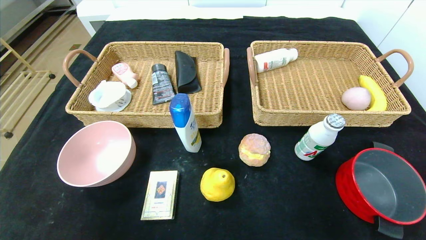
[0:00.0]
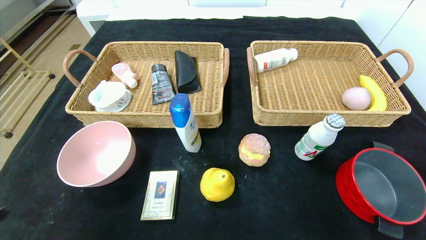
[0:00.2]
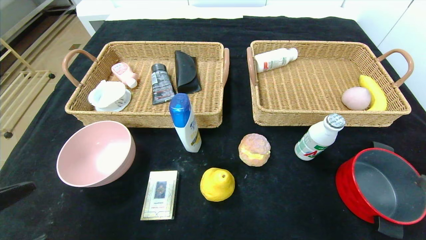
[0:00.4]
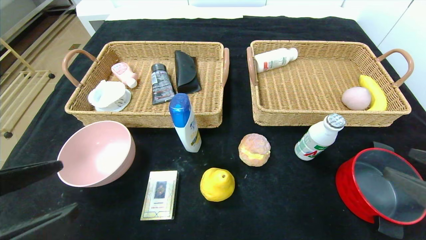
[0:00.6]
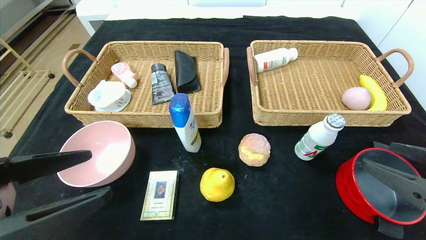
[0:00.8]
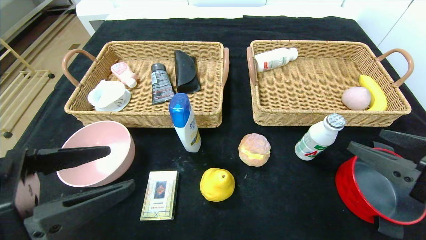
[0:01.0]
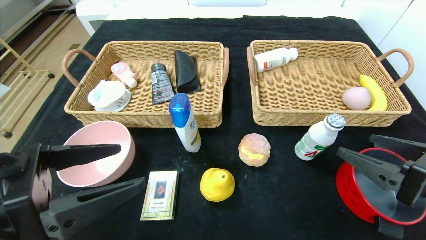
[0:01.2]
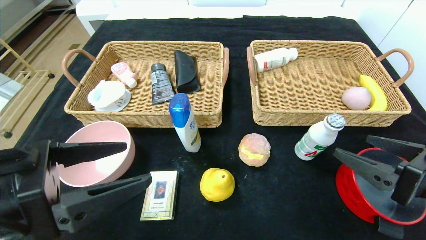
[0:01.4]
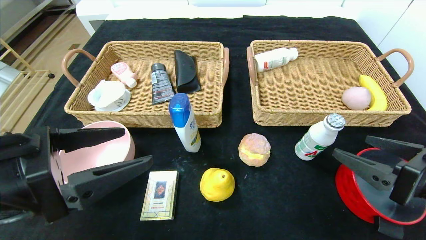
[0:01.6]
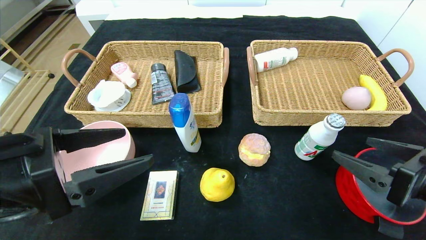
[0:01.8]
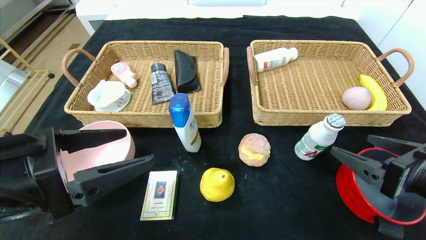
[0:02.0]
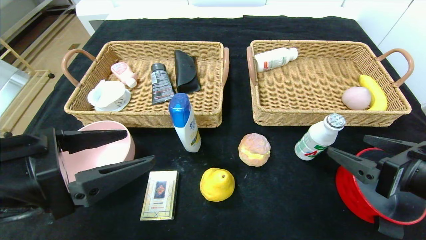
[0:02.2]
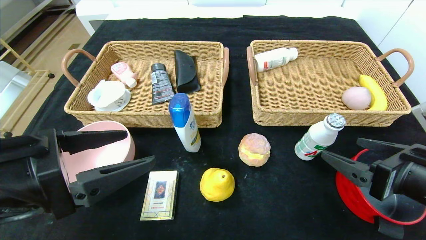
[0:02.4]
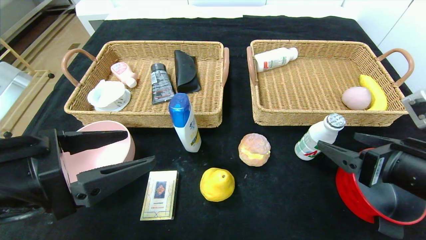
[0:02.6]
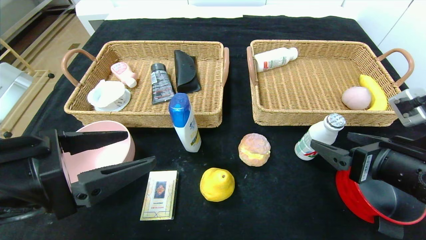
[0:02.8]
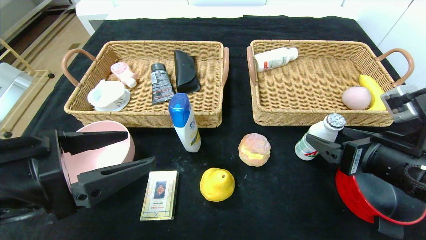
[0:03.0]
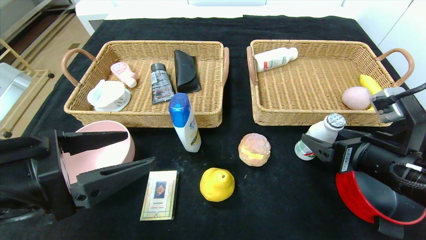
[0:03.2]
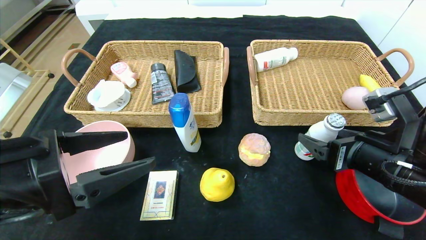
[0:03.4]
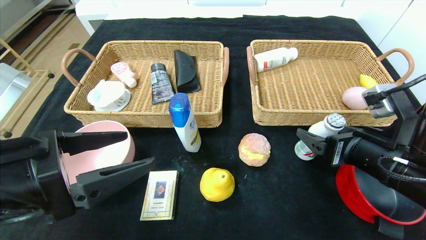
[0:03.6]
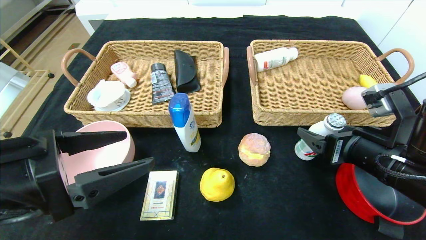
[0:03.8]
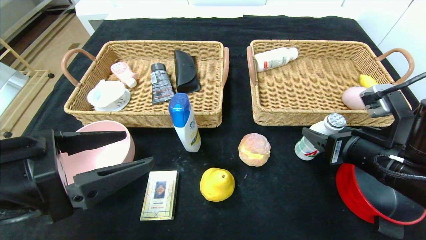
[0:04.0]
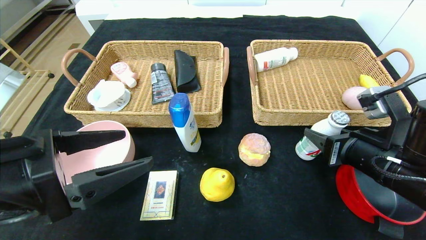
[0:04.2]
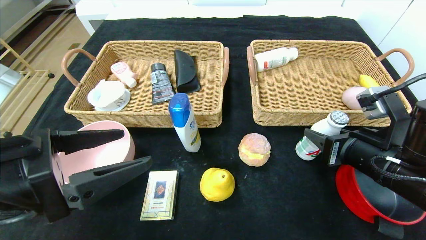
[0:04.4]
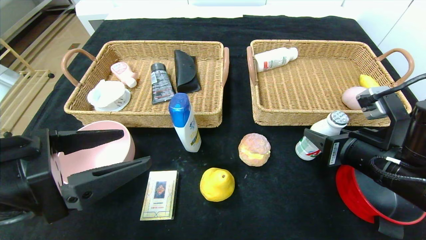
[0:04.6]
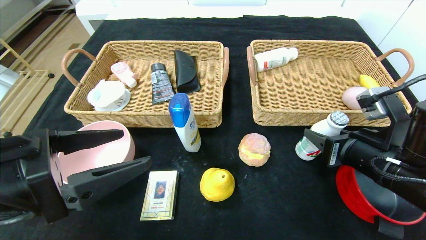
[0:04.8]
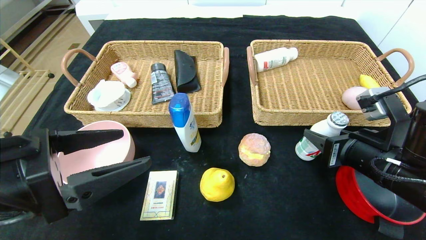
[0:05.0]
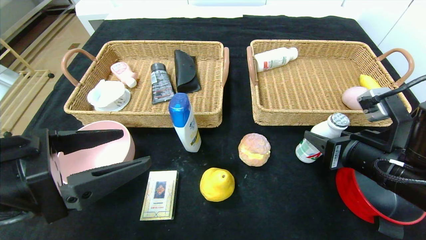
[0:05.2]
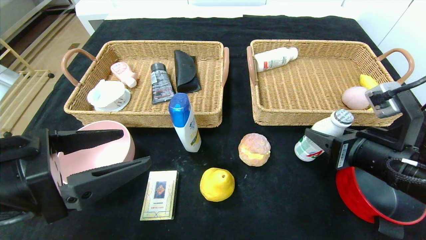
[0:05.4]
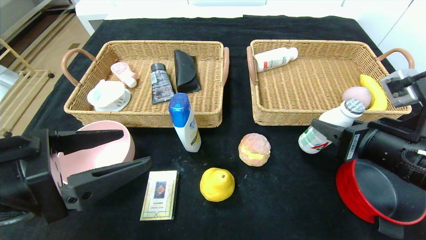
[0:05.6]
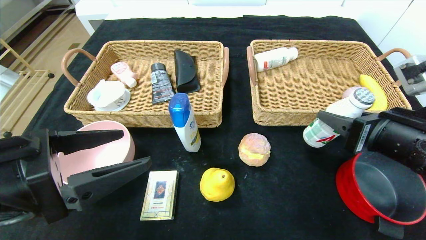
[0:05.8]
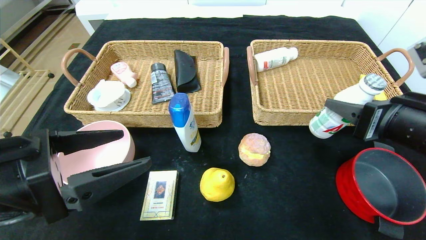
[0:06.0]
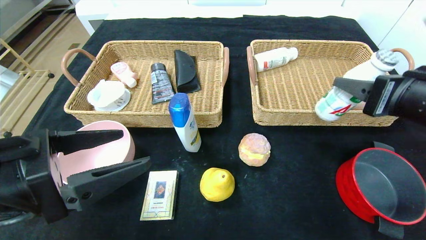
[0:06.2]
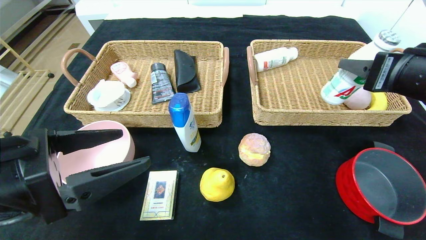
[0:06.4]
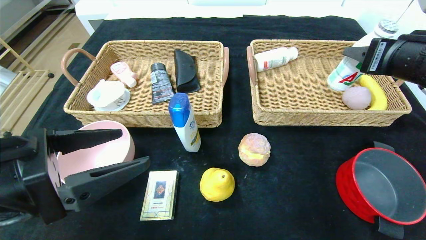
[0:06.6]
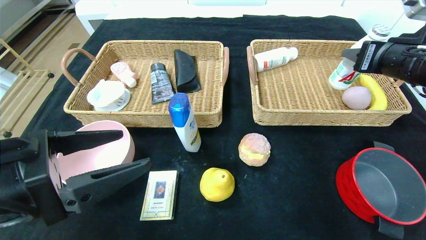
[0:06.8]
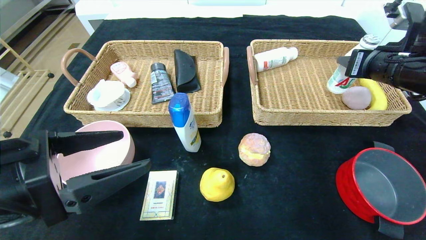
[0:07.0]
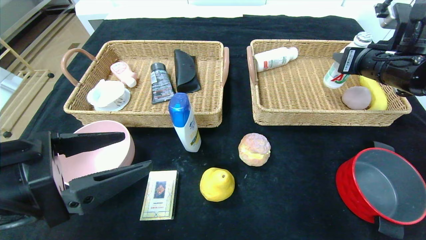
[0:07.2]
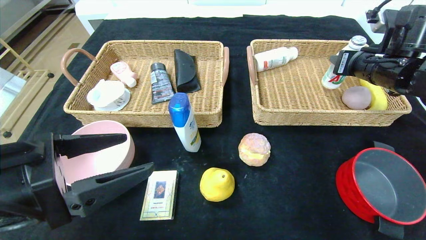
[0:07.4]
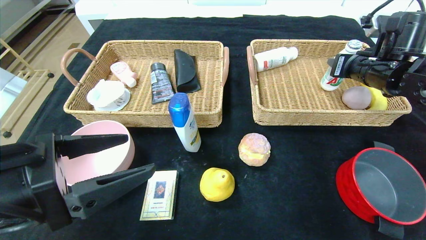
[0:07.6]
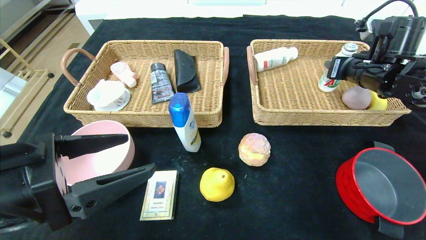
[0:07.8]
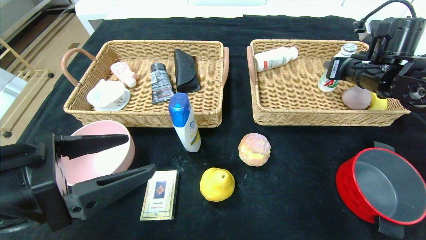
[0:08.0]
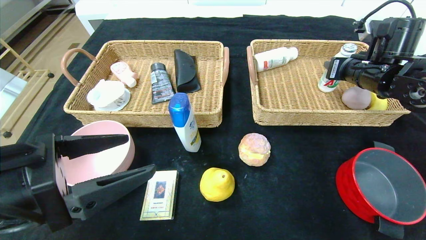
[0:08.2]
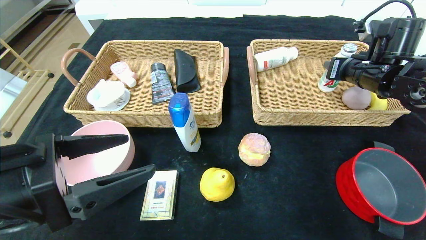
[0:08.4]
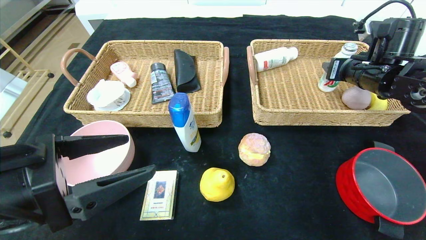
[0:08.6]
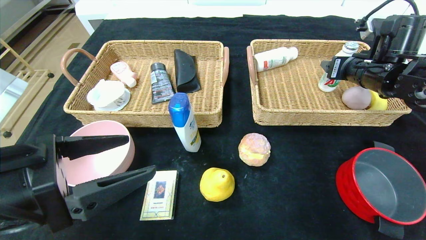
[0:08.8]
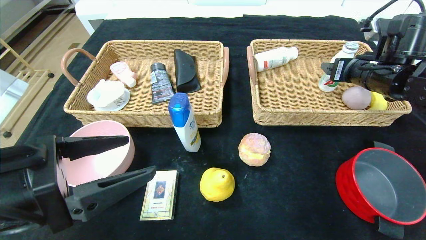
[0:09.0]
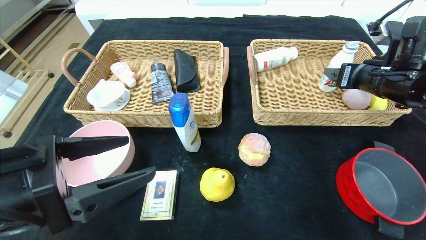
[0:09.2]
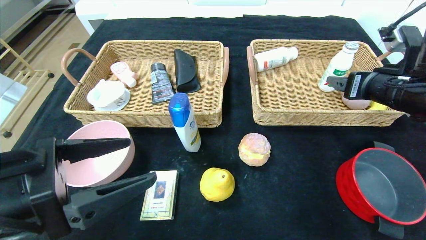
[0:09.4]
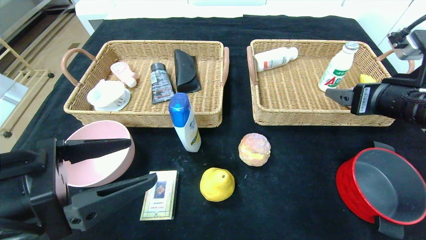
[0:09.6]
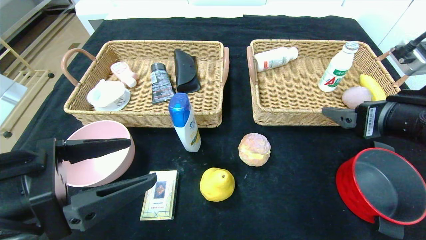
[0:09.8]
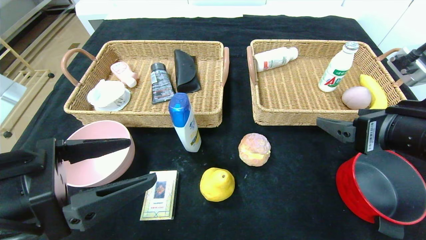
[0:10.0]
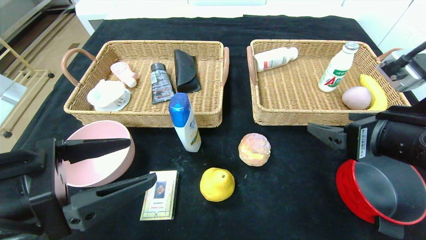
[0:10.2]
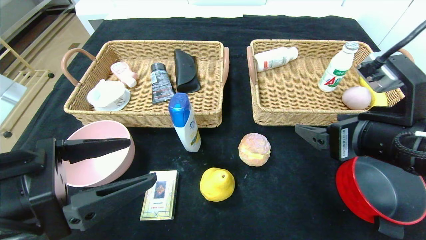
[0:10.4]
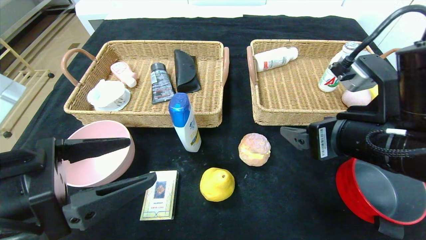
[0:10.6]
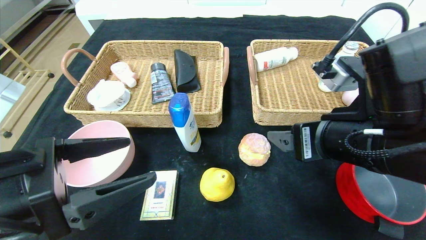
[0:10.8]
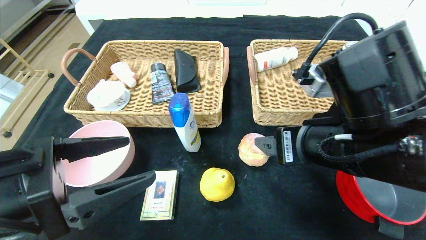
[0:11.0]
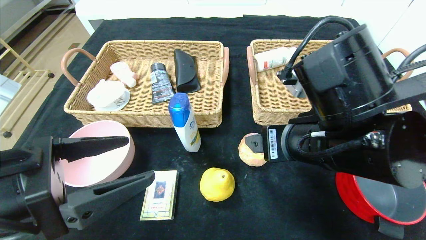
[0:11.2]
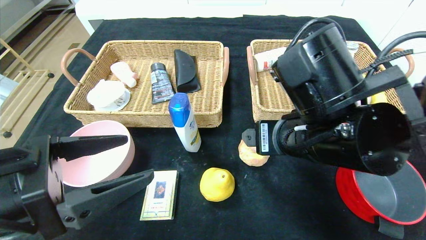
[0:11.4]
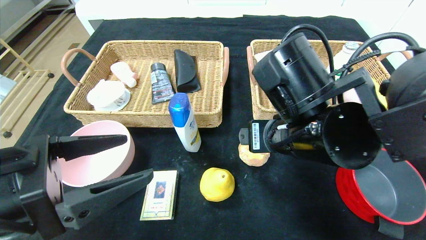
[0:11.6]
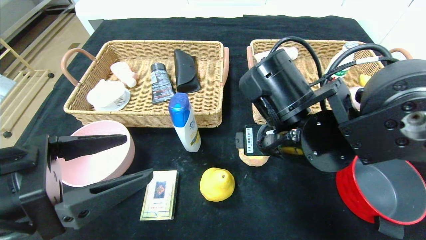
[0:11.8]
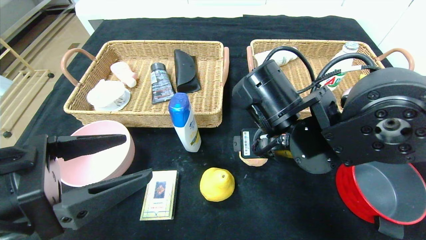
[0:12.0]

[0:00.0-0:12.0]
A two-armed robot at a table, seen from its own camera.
Step, 0:00.0 to 0:09.0: Grasp the ad milk and put it in the right basket.
0:00.0 to 0:01.6: The left gripper is displaced forward, upward and to the right by roughly 20 cm; the right gripper moves forward and to the left, approximately 15 cm.
0:01.6 to 0:03.0: The right gripper ends up approximately 5 cm from where it was.
0:03.0 to 0:04.4: The right gripper closes its fingers.
0:04.4 to 0:06.0: The right gripper goes about 5 cm upward.
0:06.0 to 0:07.6: The right gripper is displaced forward by some 20 cm.
0:07.6 to 0:09.0: The right gripper opens its fingers.
0:09.0 to 0:10.4: The right gripper heads backward and to the left, covering some 20 cm.
0:10.4 to 0:12.0: The right gripper goes some 15 cm to the left.

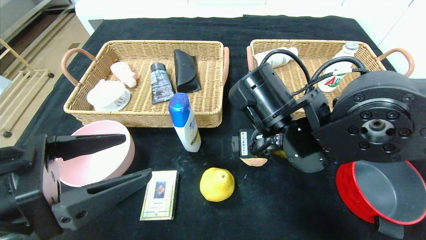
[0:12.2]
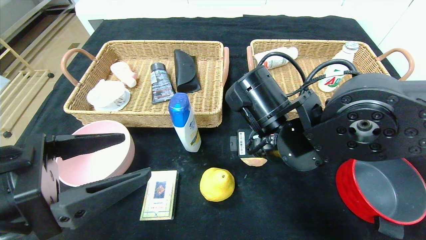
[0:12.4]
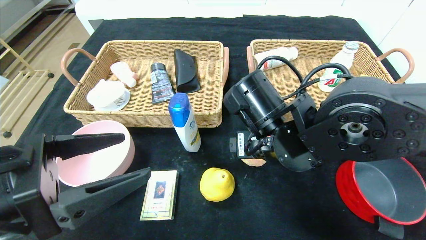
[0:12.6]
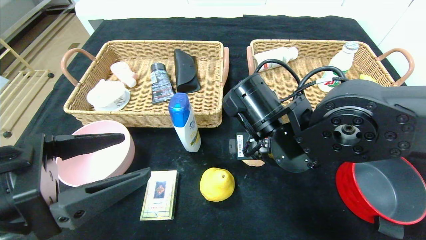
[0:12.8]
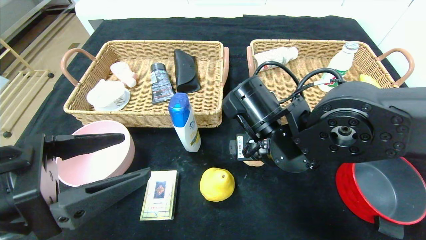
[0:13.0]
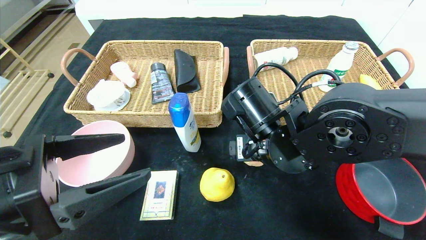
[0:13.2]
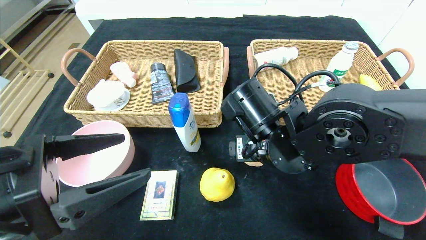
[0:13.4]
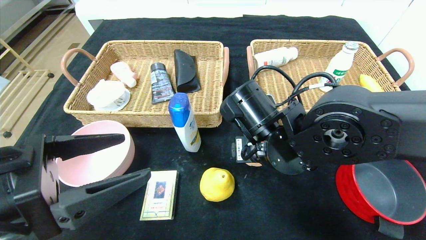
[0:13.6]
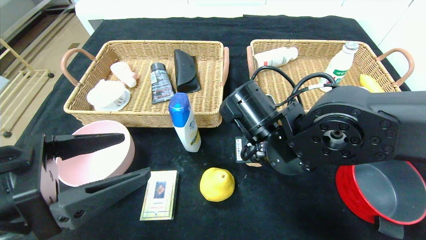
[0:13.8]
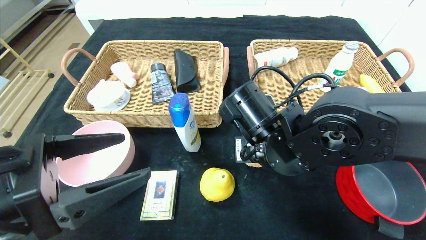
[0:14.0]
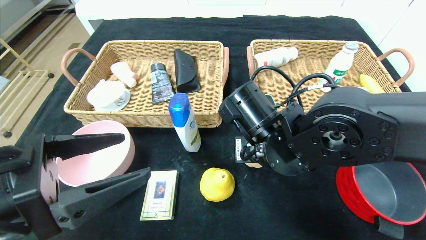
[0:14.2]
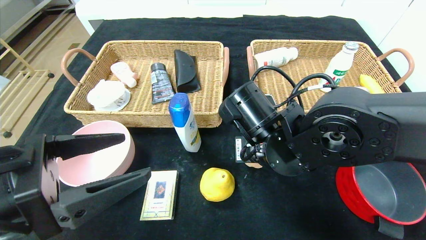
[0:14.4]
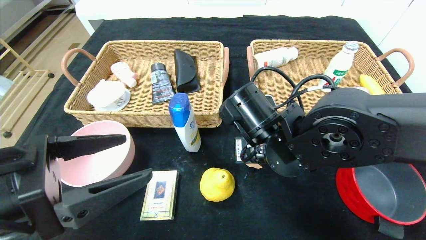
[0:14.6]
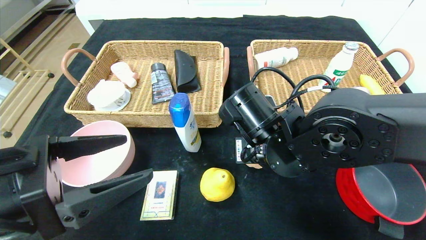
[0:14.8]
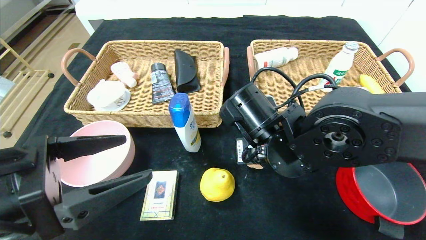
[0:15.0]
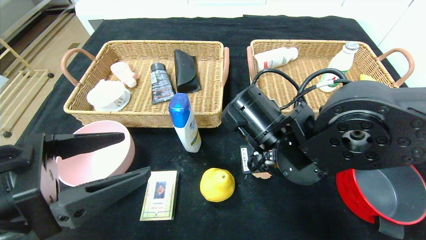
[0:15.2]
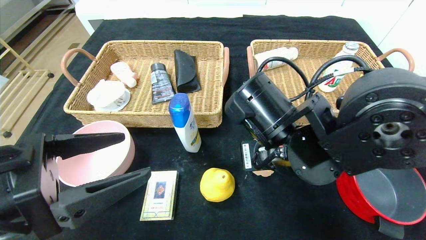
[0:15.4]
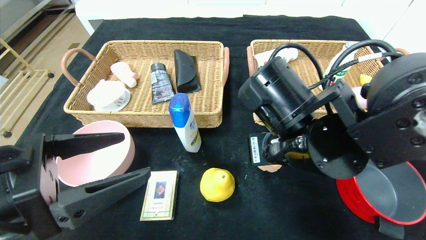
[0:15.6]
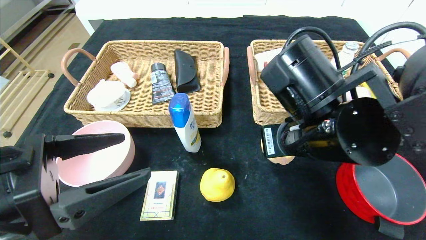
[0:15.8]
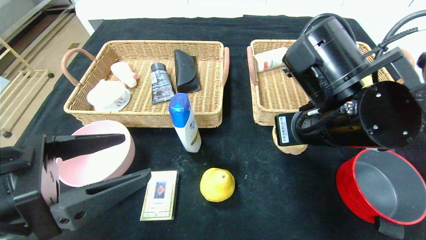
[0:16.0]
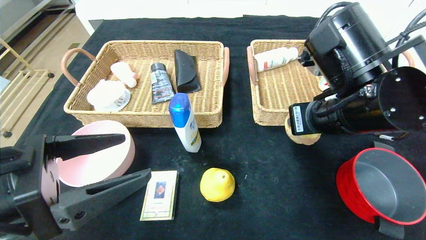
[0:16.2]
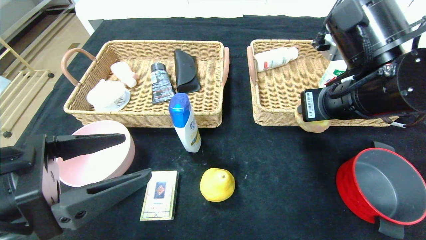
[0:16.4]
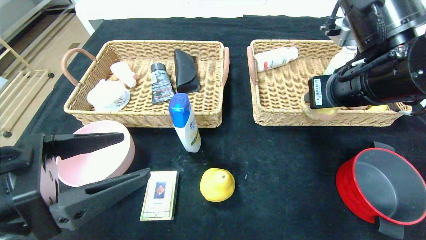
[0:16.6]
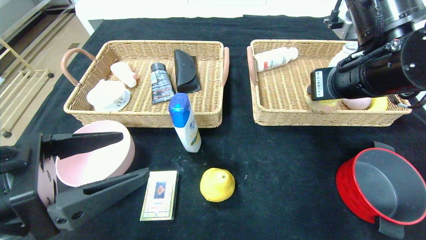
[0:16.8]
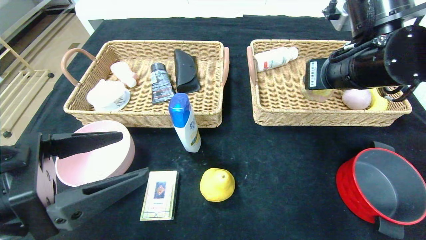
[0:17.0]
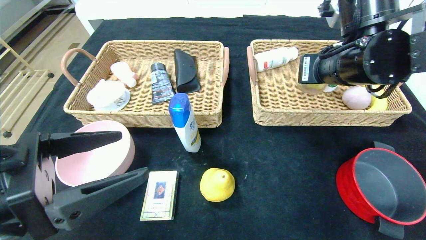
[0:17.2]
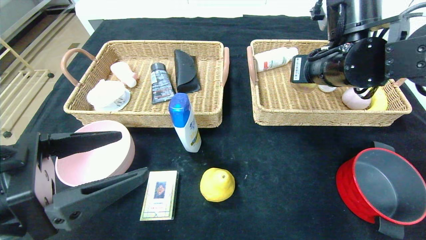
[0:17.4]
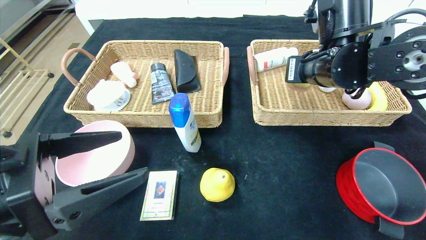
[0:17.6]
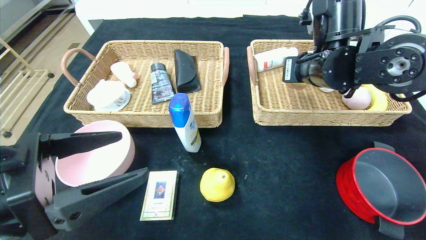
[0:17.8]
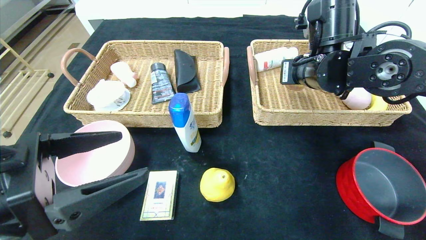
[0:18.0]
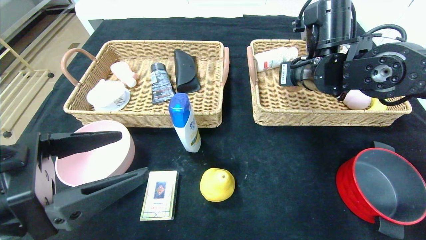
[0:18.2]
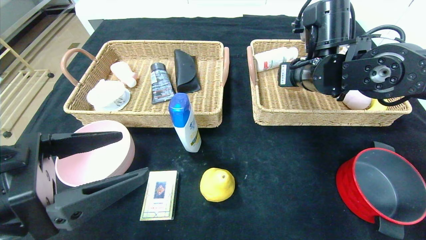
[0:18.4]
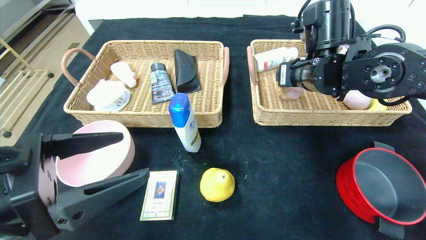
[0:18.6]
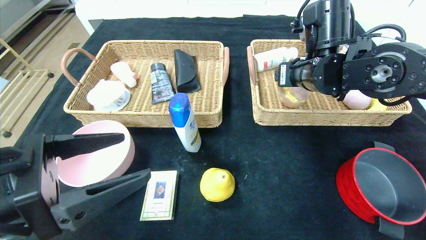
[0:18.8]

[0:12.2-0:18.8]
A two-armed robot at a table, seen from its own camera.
0:12.2 to 0:13.8: The right gripper closes its fingers.
0:13.8 to 0:15.4: The grippers move only a little.
0:15.4 to 0:17.2: The right gripper heads to the right, upward and forward, covering some 15 cm.
0:17.2 to 0:18.8: The right gripper goes approximately 5 cm forward, and opens up.
